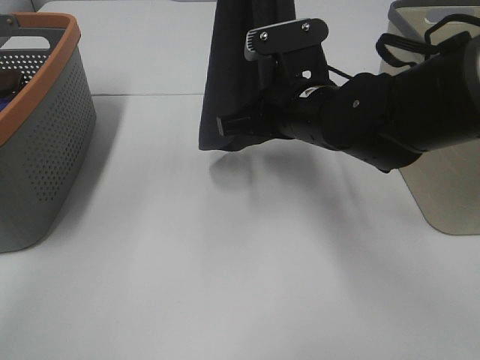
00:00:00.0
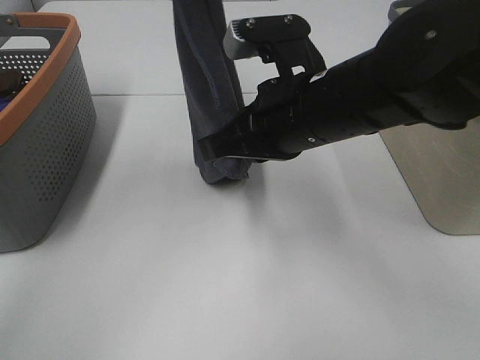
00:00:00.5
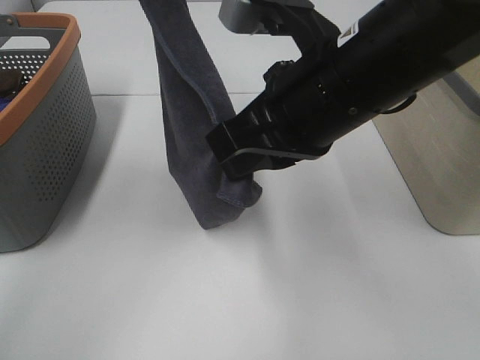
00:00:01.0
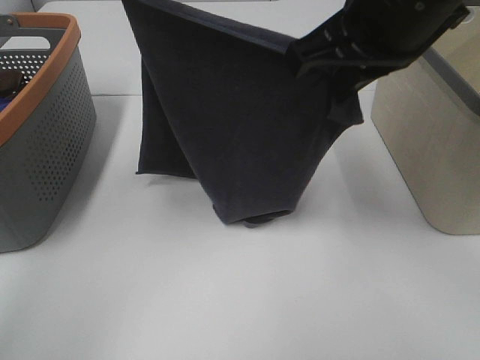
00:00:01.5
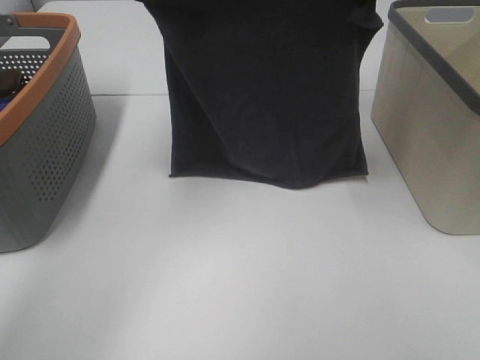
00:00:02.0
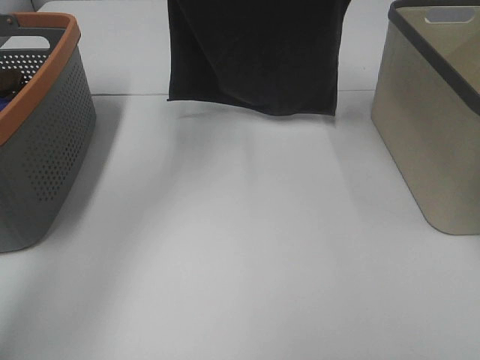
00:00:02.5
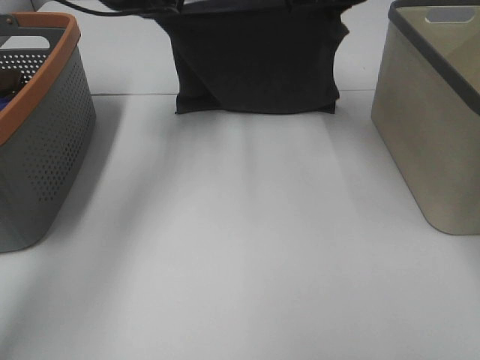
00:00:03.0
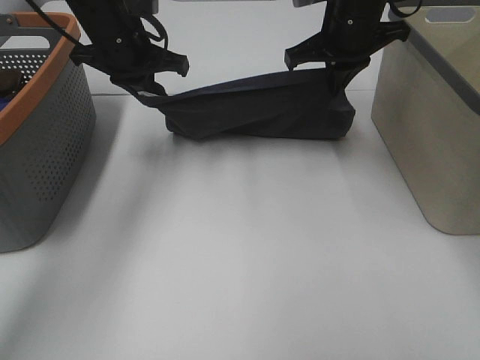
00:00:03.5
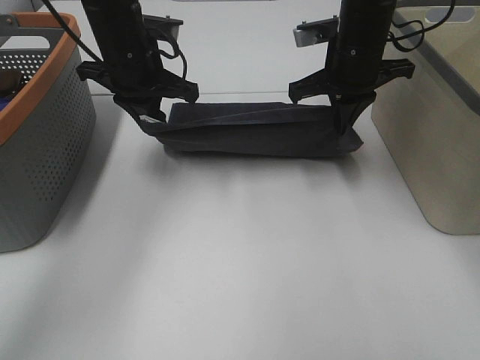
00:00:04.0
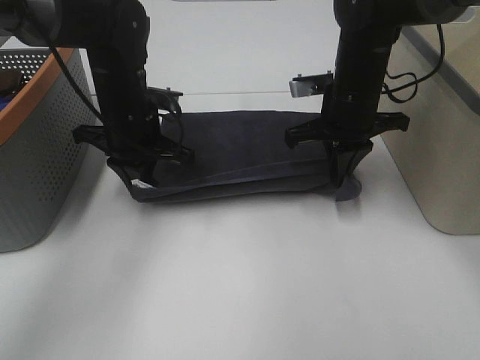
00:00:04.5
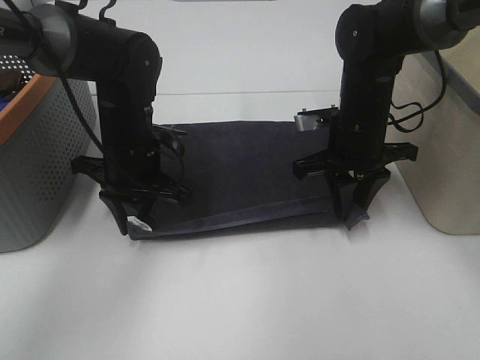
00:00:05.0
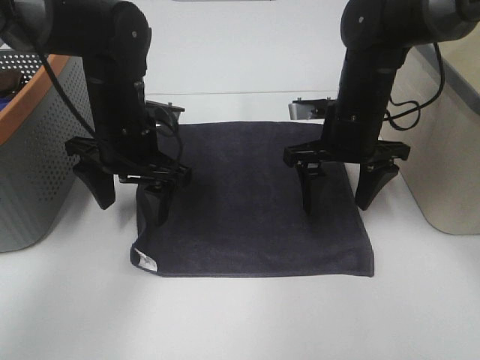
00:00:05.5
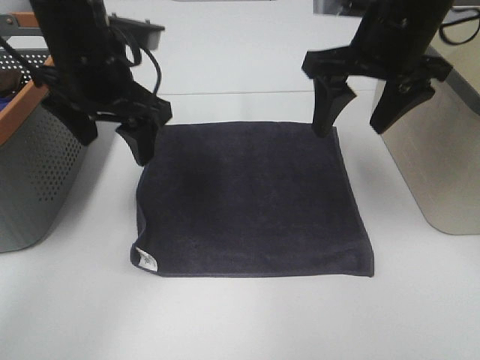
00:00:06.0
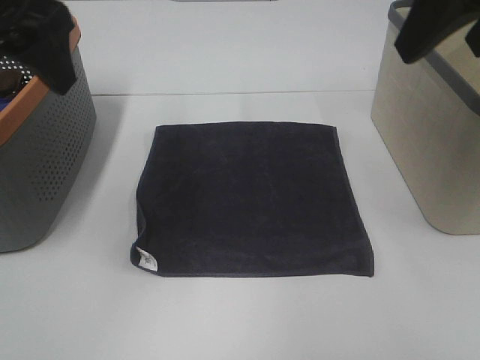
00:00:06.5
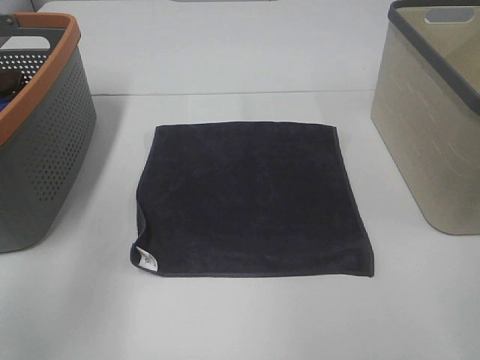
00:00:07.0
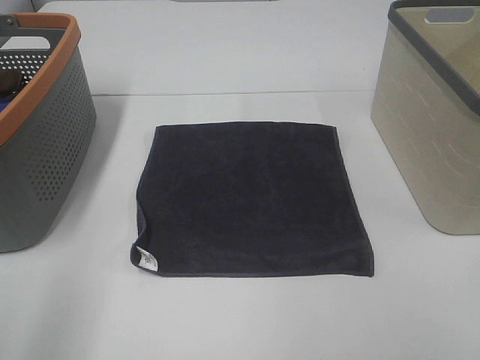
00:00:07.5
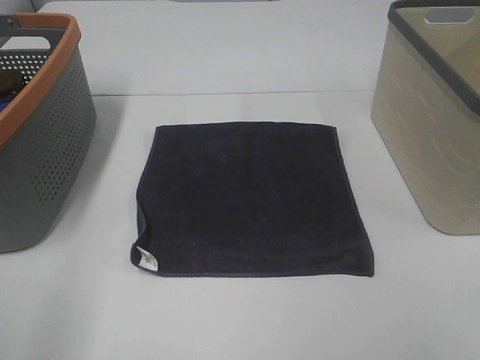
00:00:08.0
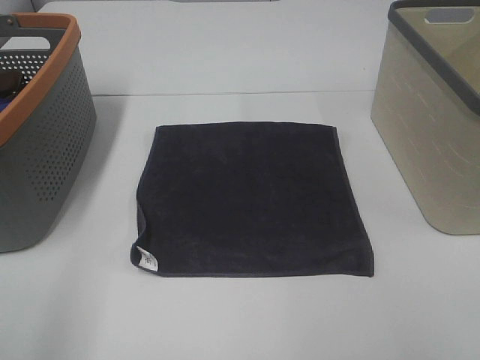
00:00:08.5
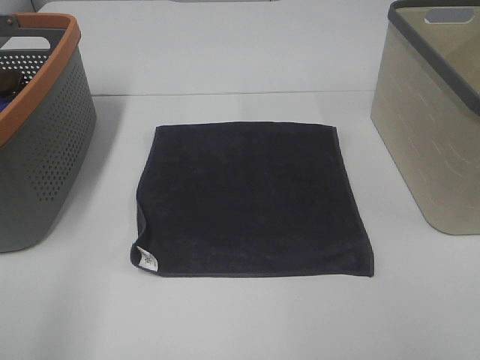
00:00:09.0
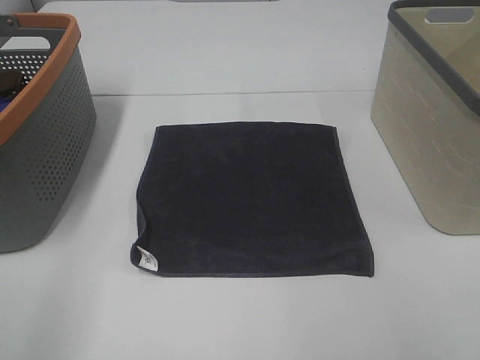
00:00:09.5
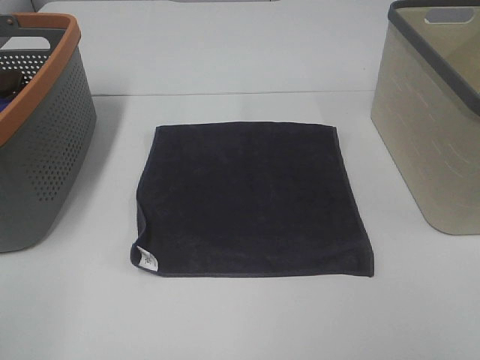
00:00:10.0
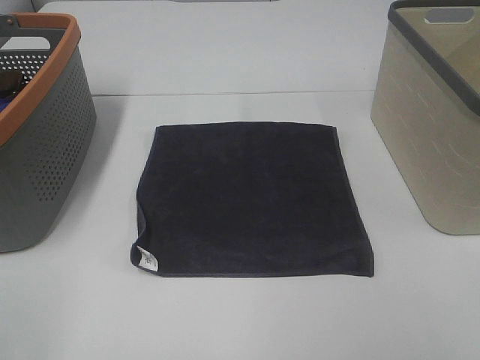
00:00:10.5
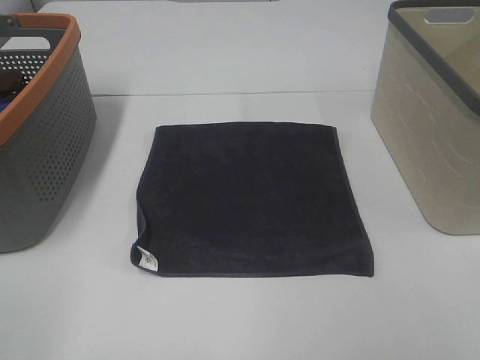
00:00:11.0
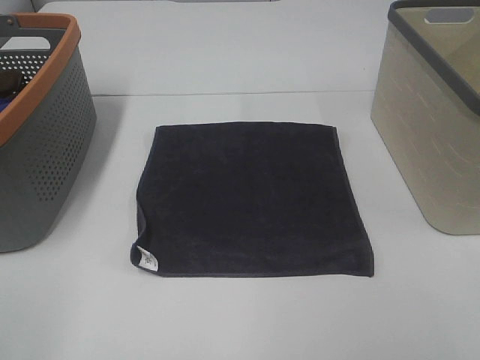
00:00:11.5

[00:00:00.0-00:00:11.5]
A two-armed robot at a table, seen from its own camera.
Task of the whole recording: Remove the towel and place it.
00:00:00.0 to 00:00:02.0: The left gripper shifts some 15 cm downward, to the left and forward. The right gripper is displaced upward and to the right by roughly 20 cm.
00:00:02.0 to 00:00:04.0: The left gripper shifts approximately 15 cm downward, while the right gripper moves downward and forward, about 15 cm.
00:00:04.0 to 00:00:06.0: The right gripper shifts roughly 10 cm backward and upward, and opens up, while the left gripper heads backward, covering some 10 cm, moves roughly 10 cm downward and comes back, and opens.
00:00:06.0 to 00:00:07.5: The right gripper travels backward and to the right by approximately 30 cm, while the left gripper heads backward and to the left, covering about 30 cm.

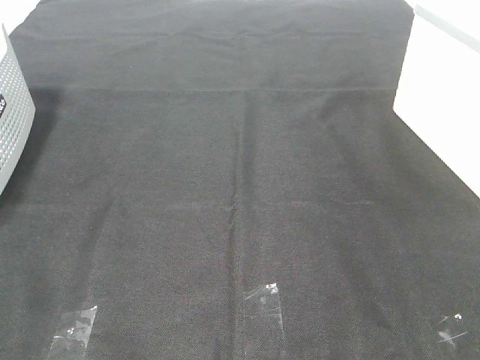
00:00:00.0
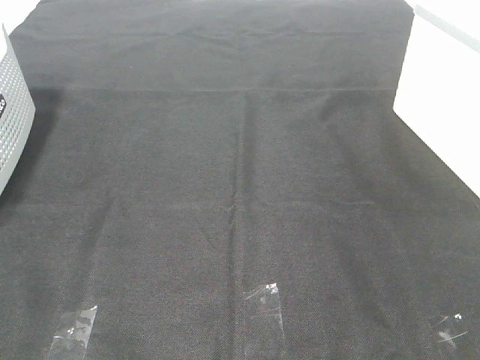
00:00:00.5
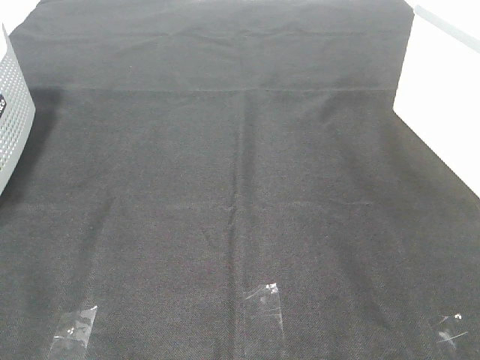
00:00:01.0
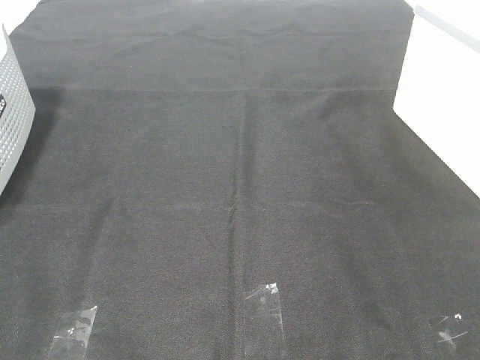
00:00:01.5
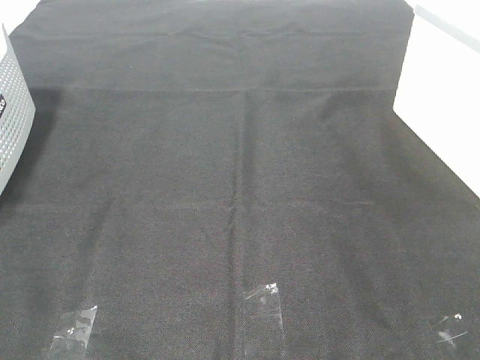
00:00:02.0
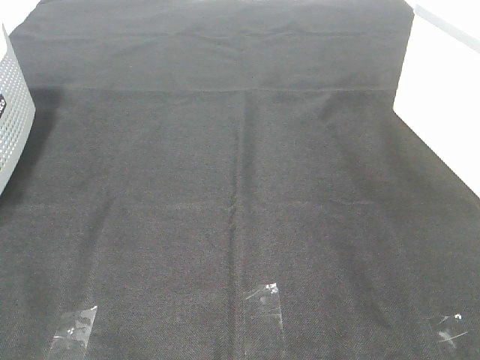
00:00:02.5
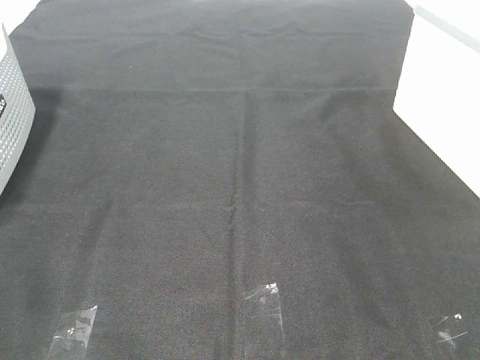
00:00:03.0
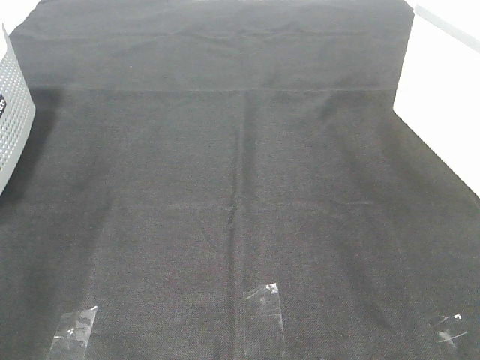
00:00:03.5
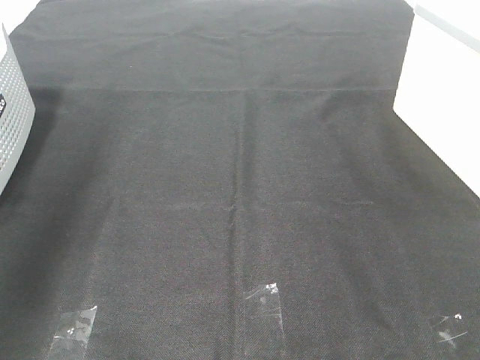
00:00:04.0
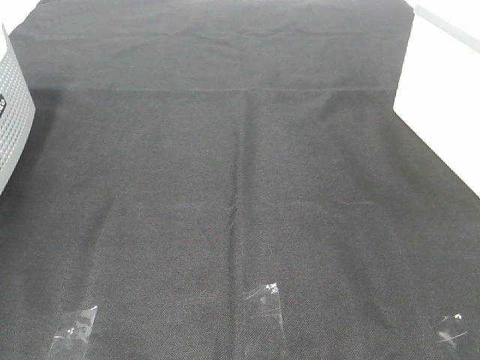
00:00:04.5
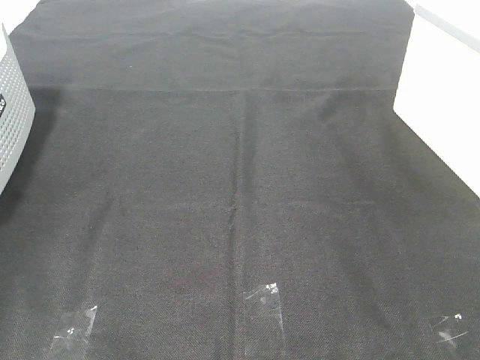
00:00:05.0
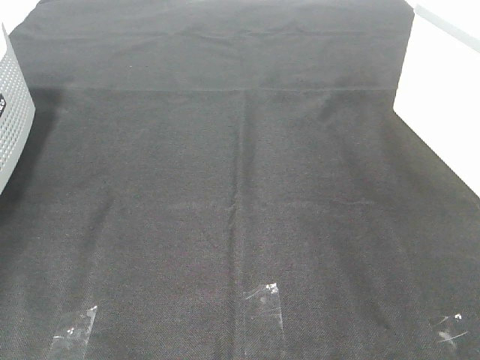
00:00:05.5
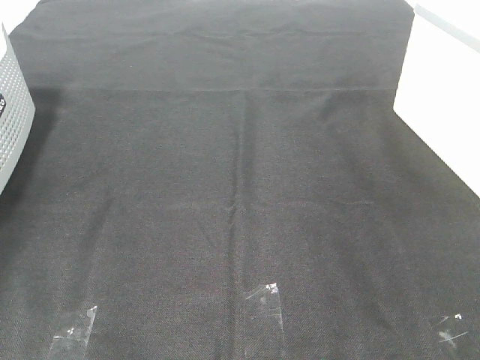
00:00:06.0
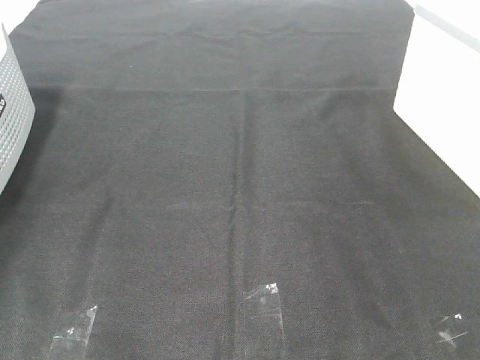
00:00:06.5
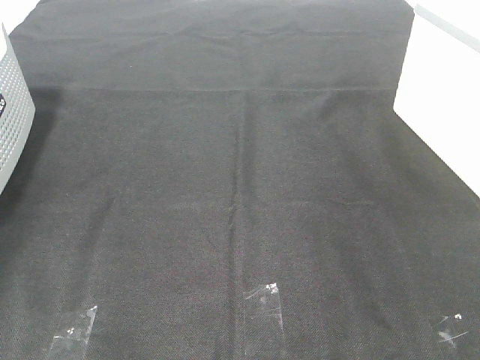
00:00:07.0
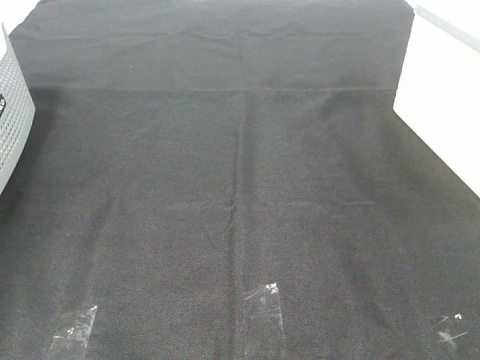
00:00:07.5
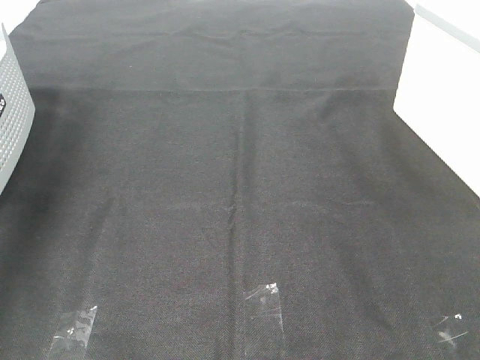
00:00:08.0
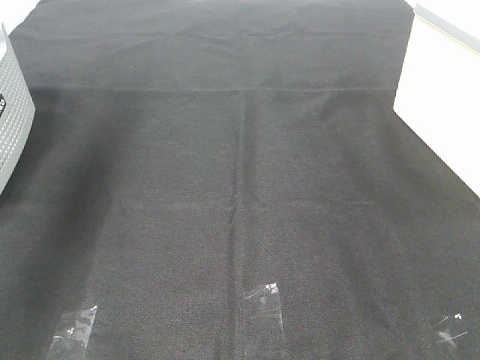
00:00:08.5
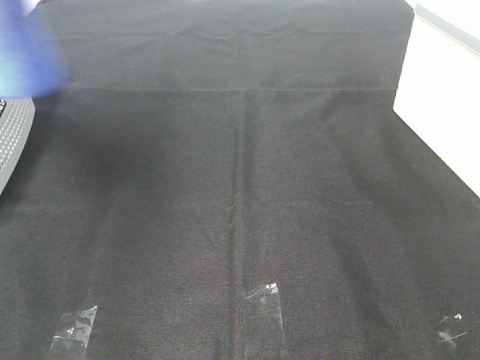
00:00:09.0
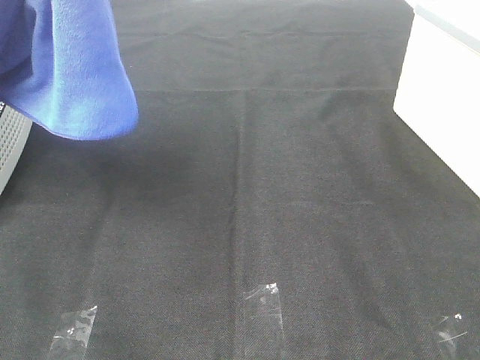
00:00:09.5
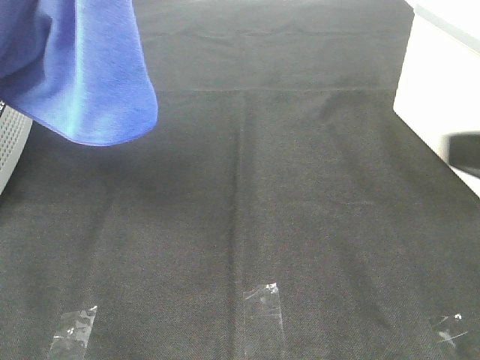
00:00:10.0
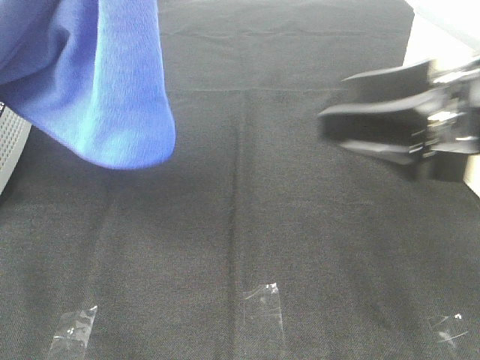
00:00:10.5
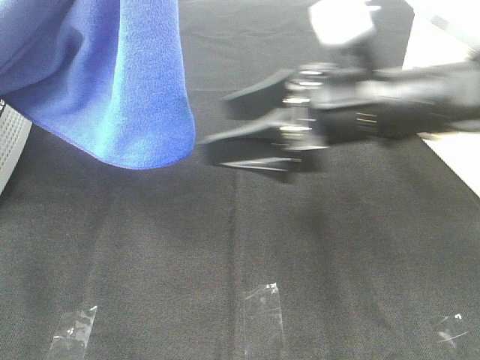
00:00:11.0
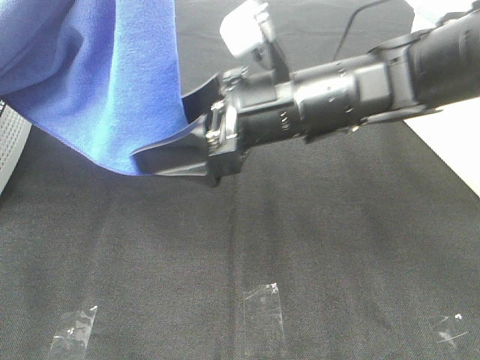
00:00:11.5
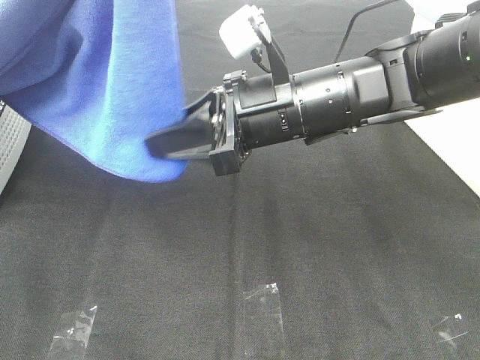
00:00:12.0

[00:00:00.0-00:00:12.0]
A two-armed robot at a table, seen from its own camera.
Task of the whole recording: Remove the towel and place it.
00:00:00.0 to 00:00:02.0: Neither gripper changes place.
00:00:02.0 to 00:00:04.0: The left gripper heads forward and upward, covering approximately 30 cm.
00:00:04.0 to 00:00:06.0: The left gripper travels downward, forward and to the left by roughly 35 cm.
00:00:06.0 to 00:00:08.0: The left gripper moves upward and to the right, about 25 cm, and closes up.
00:00:08.0 to 00:00:10.0: The right gripper is displaced forward by some 15 cm. The left gripper moves to the right, backward and upward, approximately 35 cm.
00:00:10.0 to 00:00:12.0: The right gripper goes roughly 25 cm to the left, forward and downward, and closes.

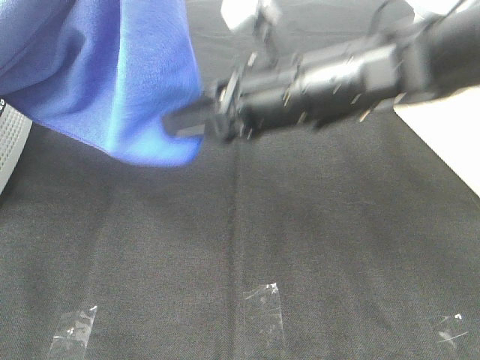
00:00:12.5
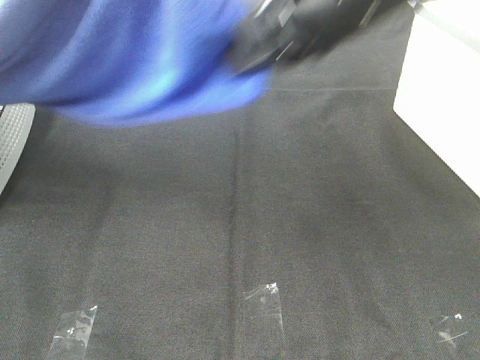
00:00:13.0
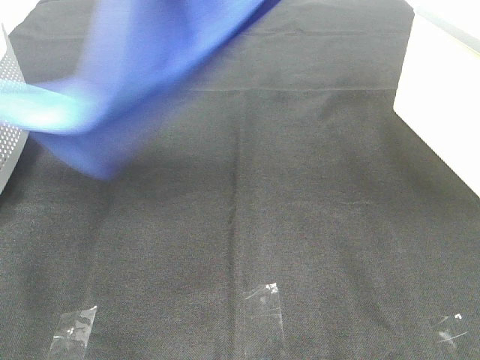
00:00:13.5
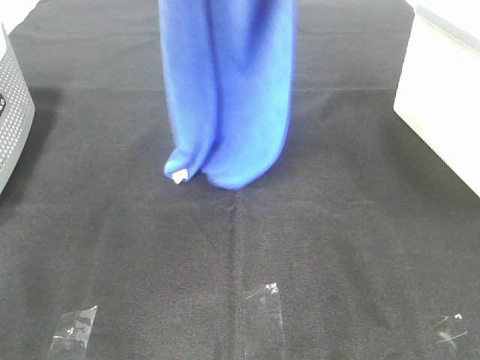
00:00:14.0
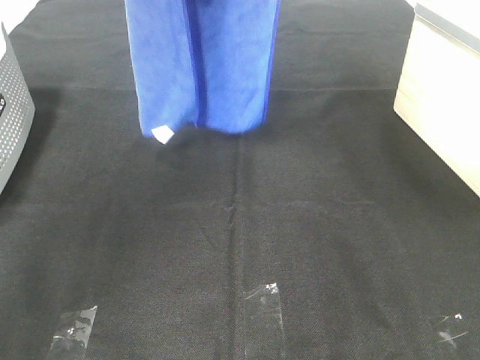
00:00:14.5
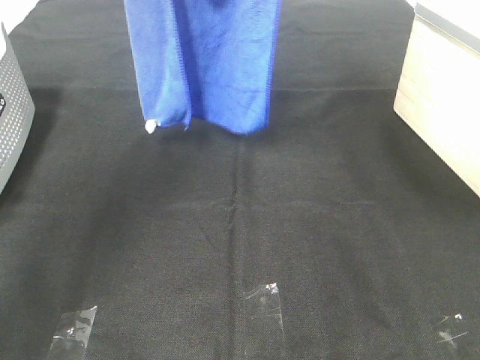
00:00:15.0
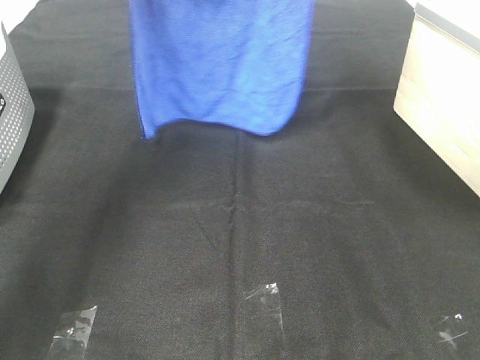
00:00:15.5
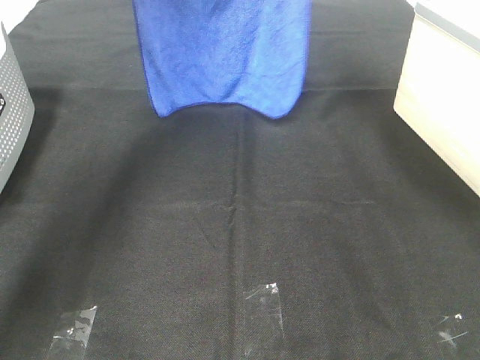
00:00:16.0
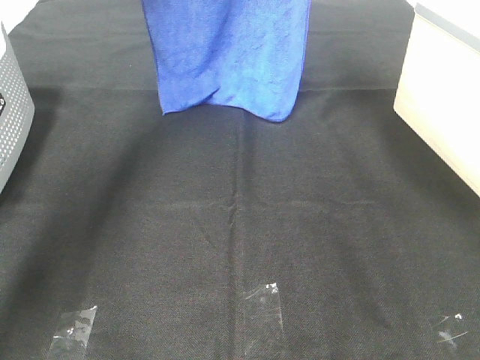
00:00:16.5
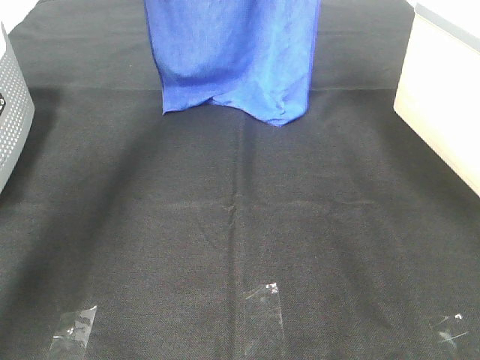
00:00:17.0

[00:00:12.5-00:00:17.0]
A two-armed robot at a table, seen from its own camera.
Task of the whole recording: Remove the towel and place it.
00:00:12.5 to 00:00:14.5: The right gripper moves upward, roughly 25 cm, while the left gripper heads forward, covering about 15 cm.
00:00:14.5 to 00:00:17.0: The grippers both shift forward and downward by about 15 cm.
